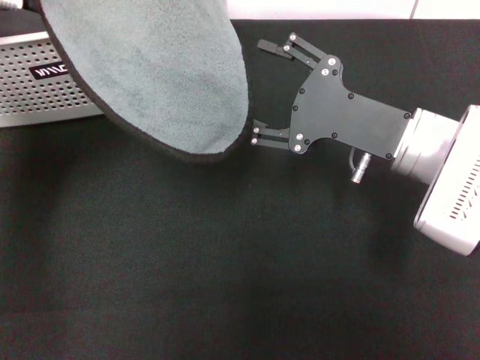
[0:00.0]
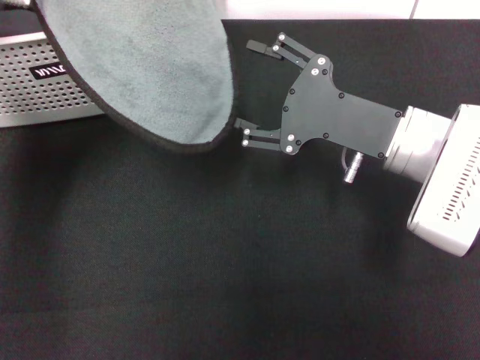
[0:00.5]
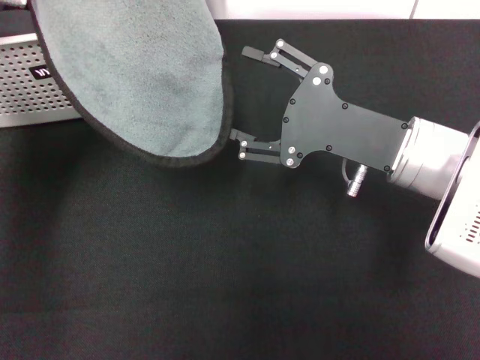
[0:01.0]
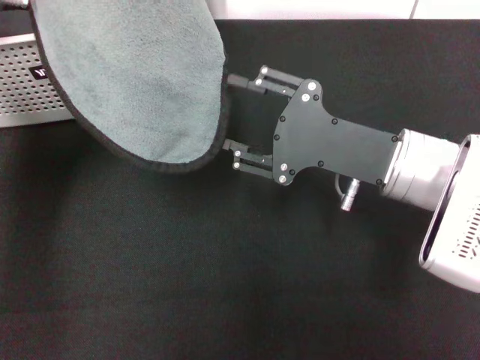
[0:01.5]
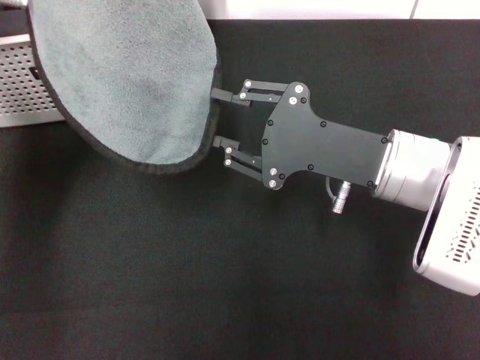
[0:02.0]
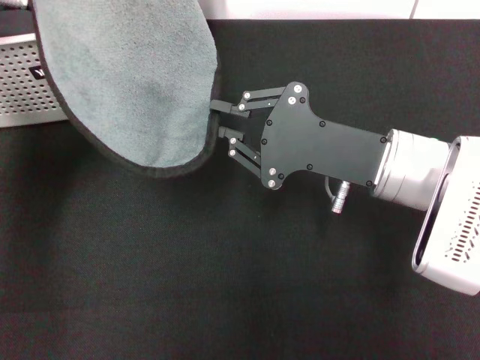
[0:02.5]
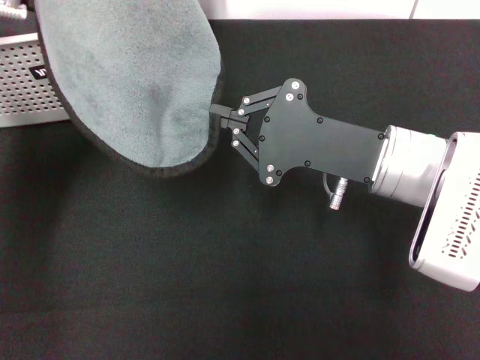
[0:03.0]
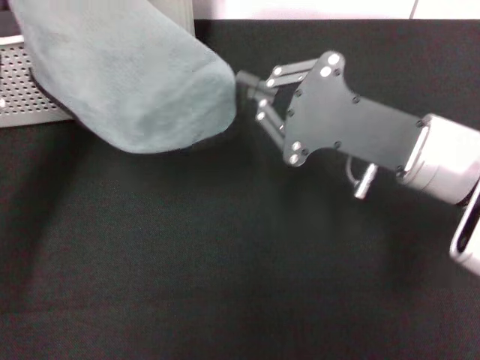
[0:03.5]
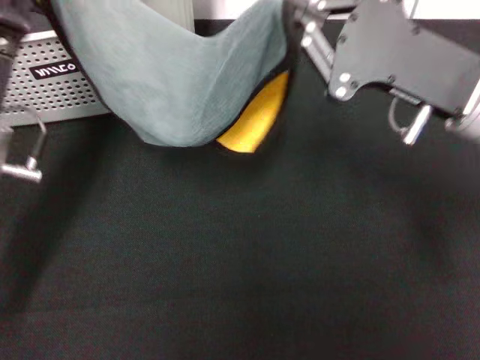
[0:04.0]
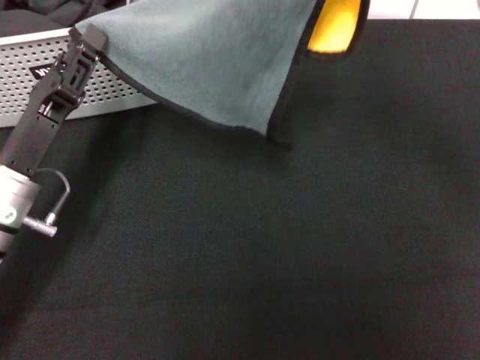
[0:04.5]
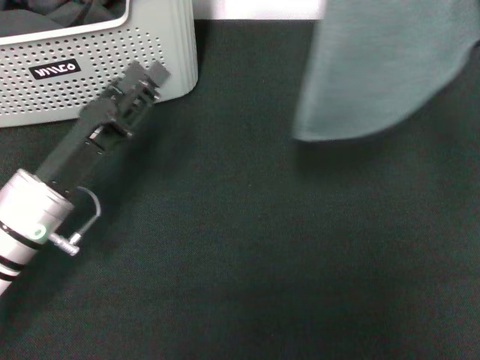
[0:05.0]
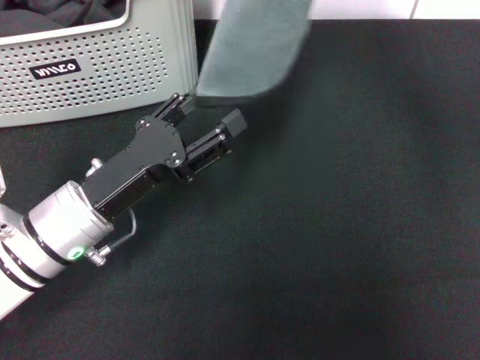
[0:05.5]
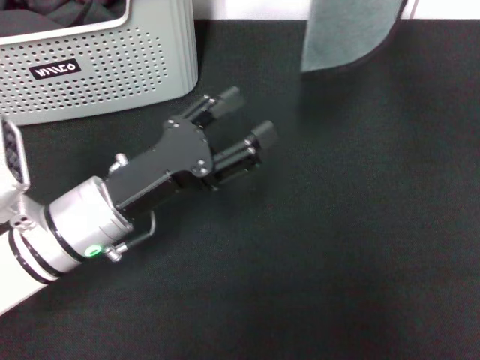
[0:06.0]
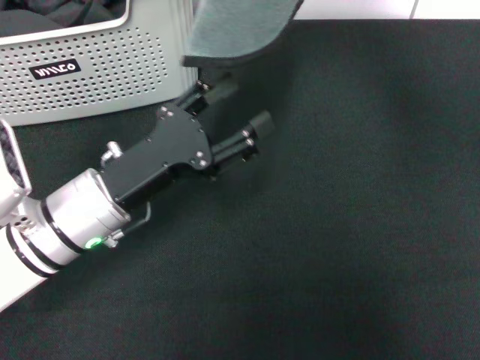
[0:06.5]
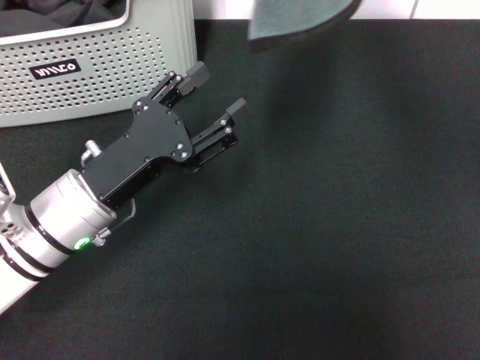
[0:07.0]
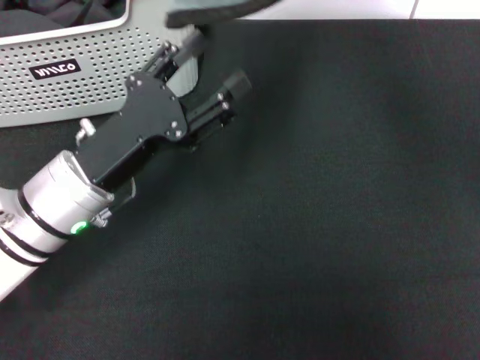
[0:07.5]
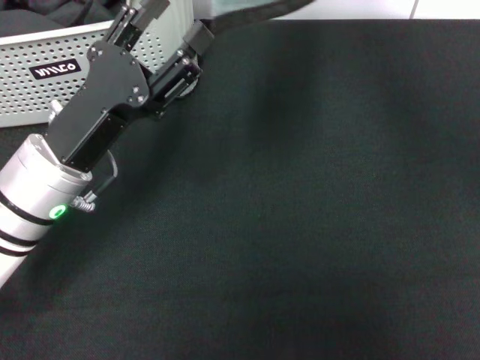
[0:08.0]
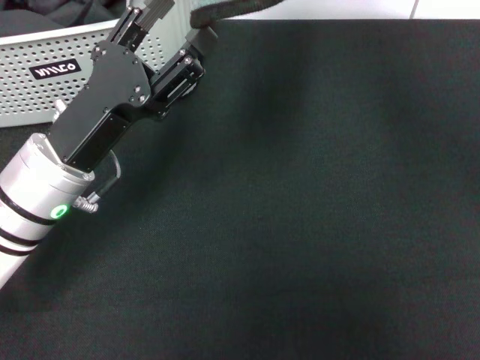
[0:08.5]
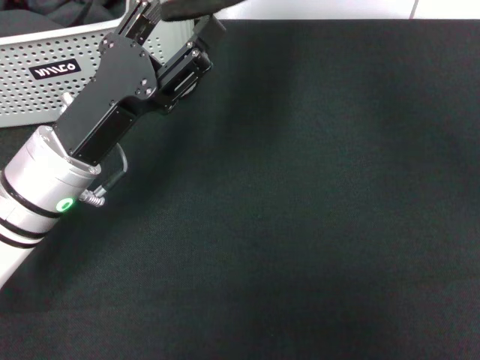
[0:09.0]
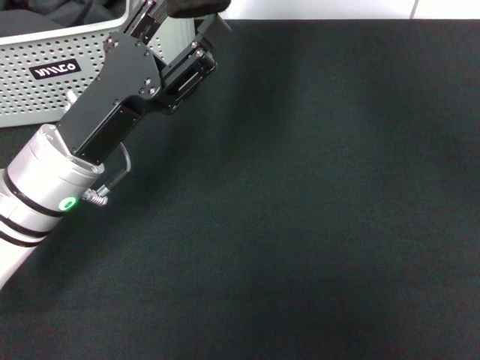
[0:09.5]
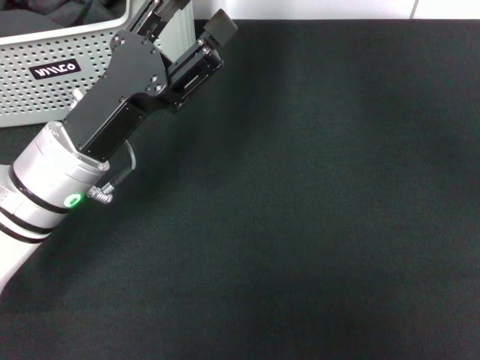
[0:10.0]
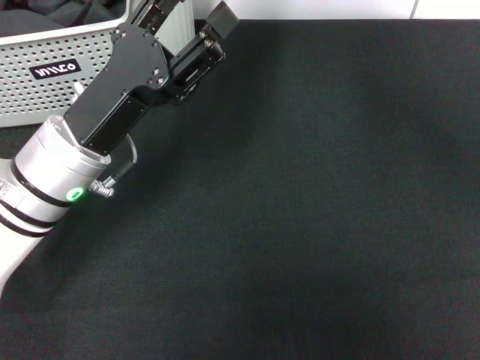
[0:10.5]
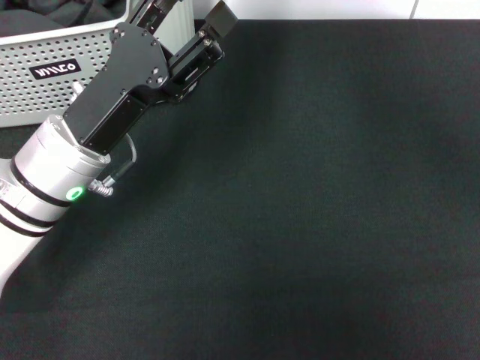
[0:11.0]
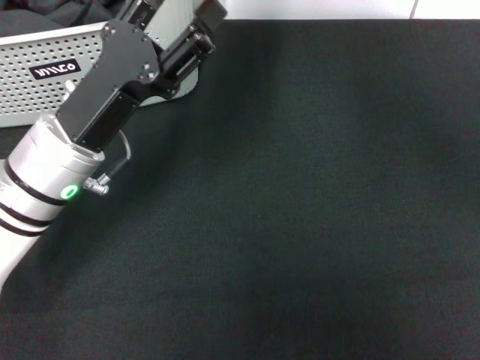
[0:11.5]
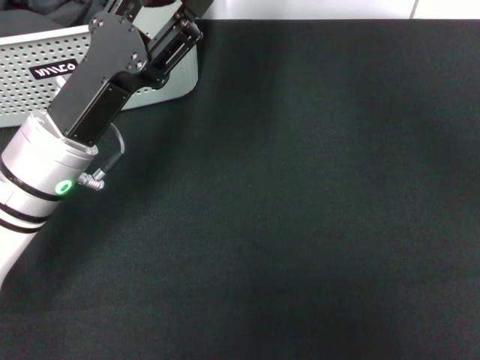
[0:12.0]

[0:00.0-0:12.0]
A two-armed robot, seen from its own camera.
Task of the whole recording: pick up the towel from the storage box and lay it flat on the black tablecloth.
Step, 0:00.0 to 0:02.5: Spread the towel flat with the left gripper.
0:00.0 to 0:02.0: The right gripper closes up.
0:02.0 to 0:04.0: The right gripper is displaced upward by approximately 5 cm, and closes up. The left gripper travels downward and backward by some 15 cm.
0:04.0 to 0:06.0: The left gripper goes about 5 cm to the right, and opens its fingers. The right gripper goes approximately 15 cm upward.
0:06.0 to 0:08.0: The right gripper shifts roughly 10 cm upward and backward.
0:08.0 to 0:10.0: The grippers move only a little.
0:10.0 to 0:12.0: Both grippers stay about where they are.

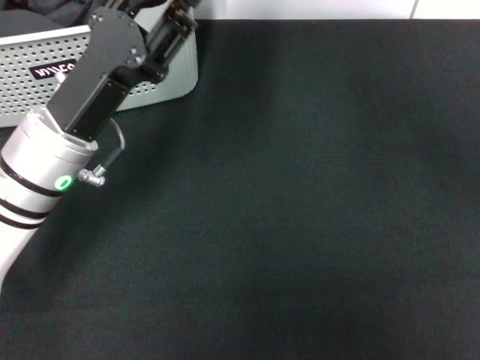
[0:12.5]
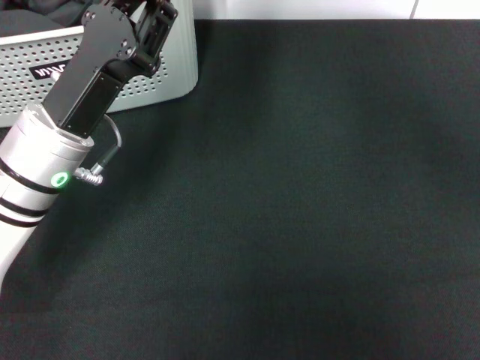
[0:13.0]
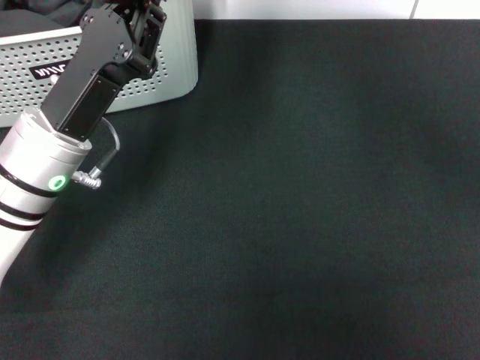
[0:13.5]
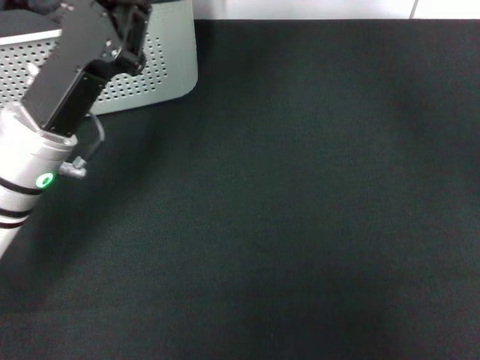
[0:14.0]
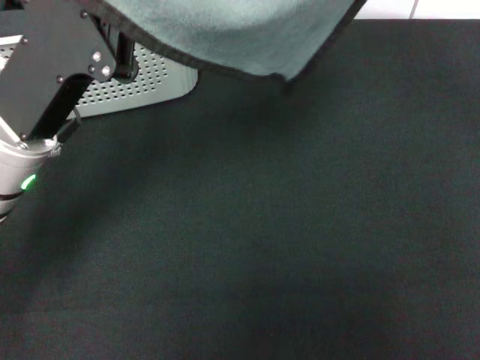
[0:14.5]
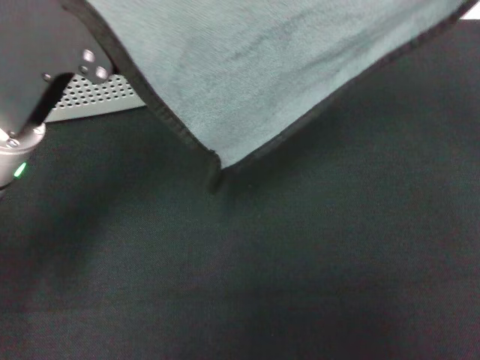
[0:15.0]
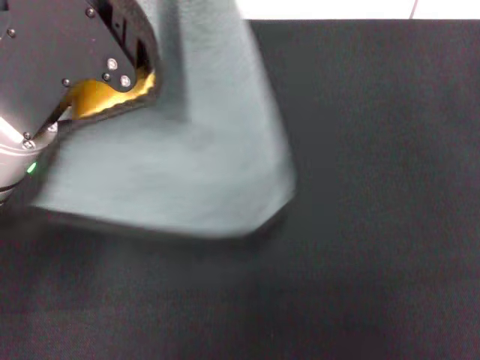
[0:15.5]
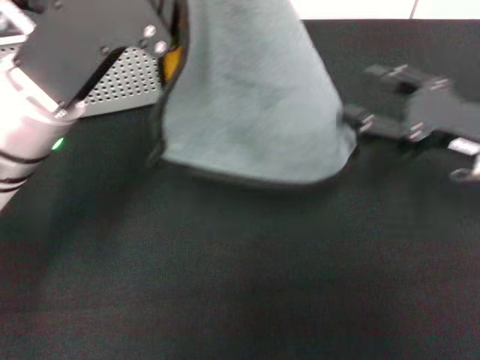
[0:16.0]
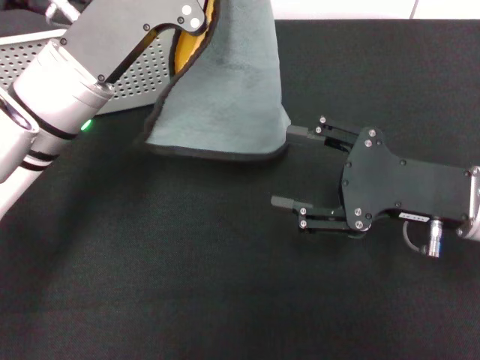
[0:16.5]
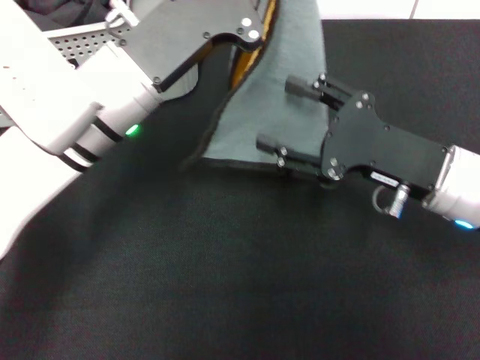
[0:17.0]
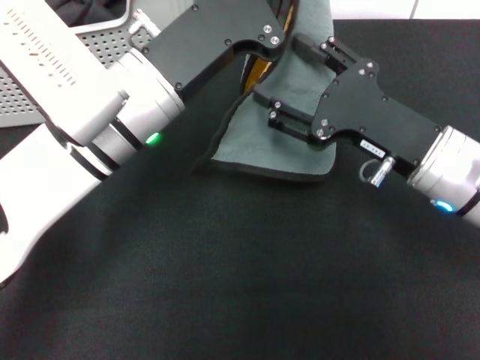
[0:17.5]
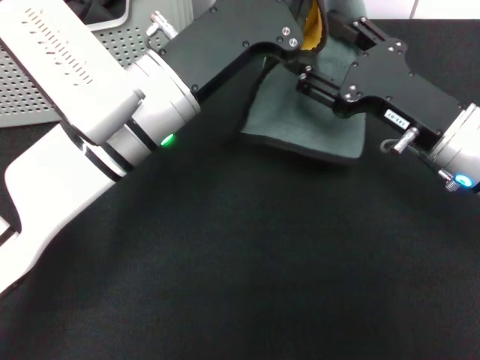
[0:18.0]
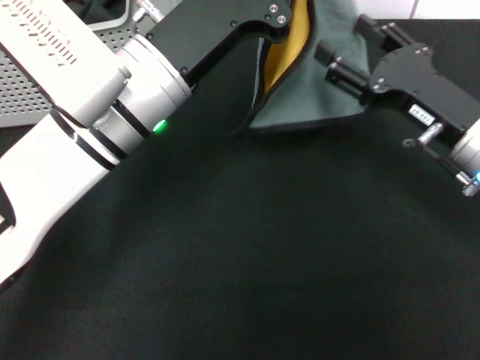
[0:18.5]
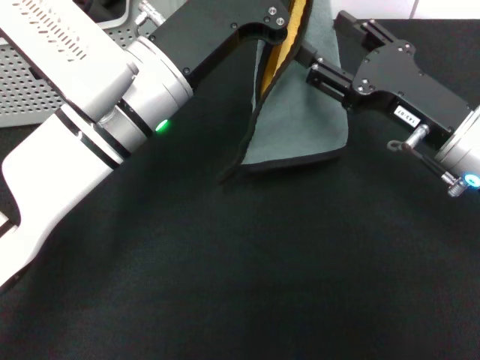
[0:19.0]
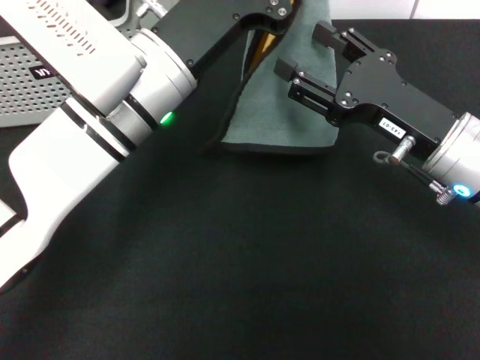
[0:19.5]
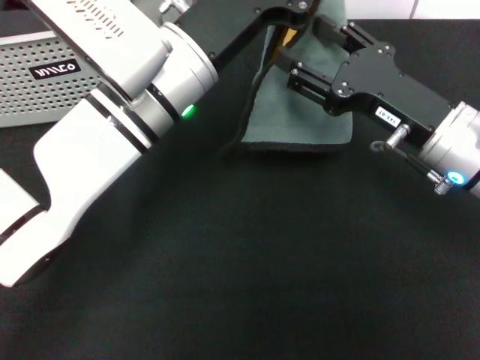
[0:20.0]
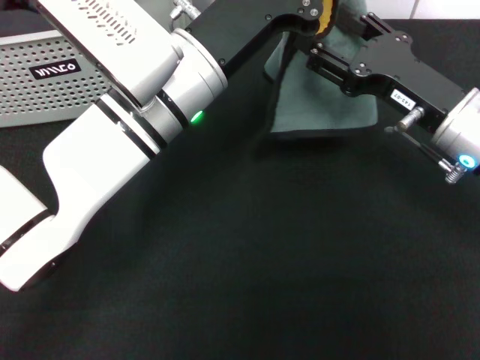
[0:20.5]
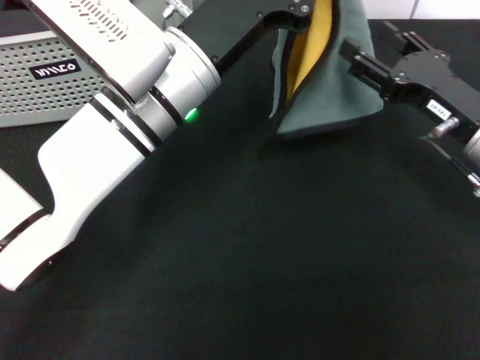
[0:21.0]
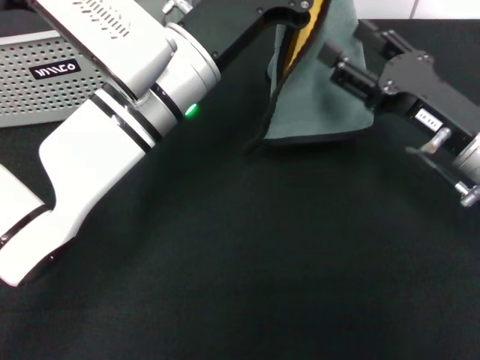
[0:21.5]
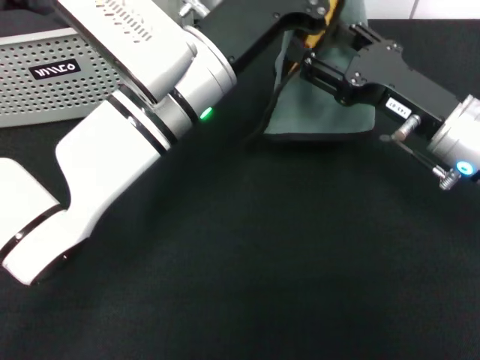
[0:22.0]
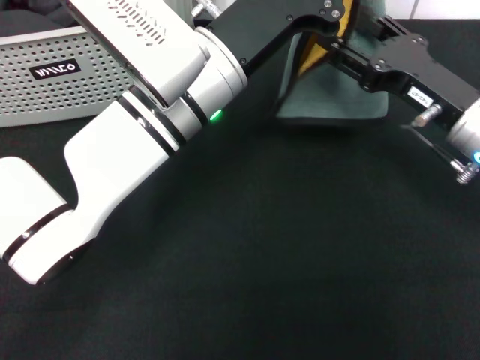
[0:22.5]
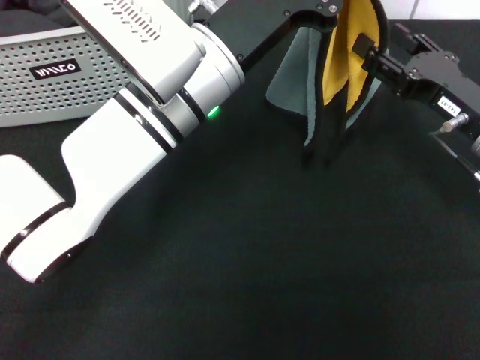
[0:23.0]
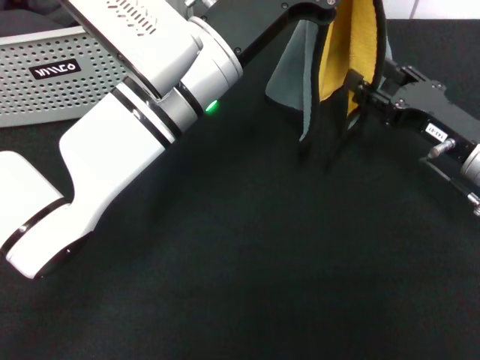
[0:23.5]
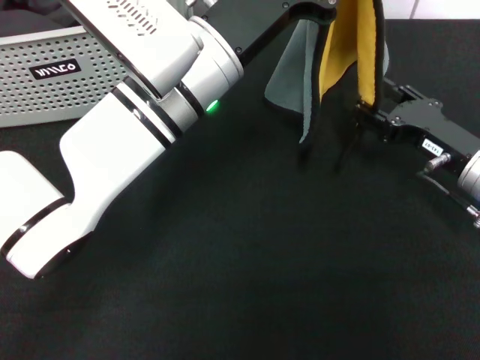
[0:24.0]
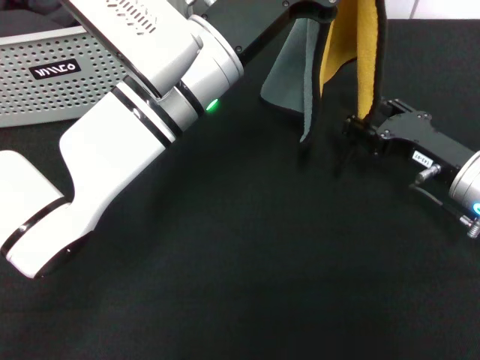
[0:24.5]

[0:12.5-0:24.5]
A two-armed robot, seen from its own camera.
Task of the whole recording: pick up the towel from the storage box and lay it flat on the black tablecloth.
0:12.5 to 0:14.5: The left gripper closes its fingers, while the right gripper travels downward and to the right by roughly 25 cm.
0:14.5 to 0:16.5: The left gripper changes place by roughly 5 cm, while the right gripper goes approximately 15 cm downward, to the left and backward, and opens its fingers.
0:16.5 to 0:18.5: The left gripper heads to the right, covering approximately 5 cm.
0:22.5 to 0:24.5: The right gripper shifts approximately 5 cm downward.

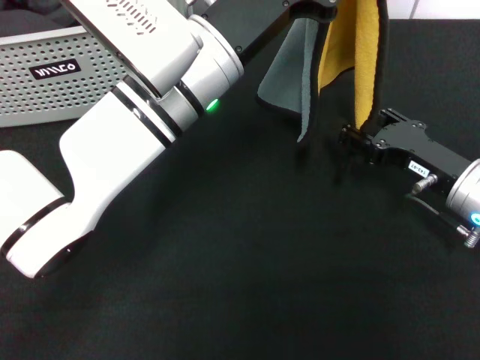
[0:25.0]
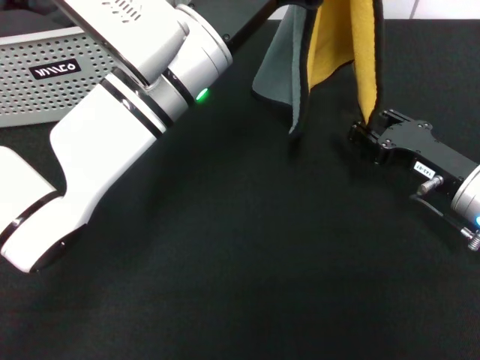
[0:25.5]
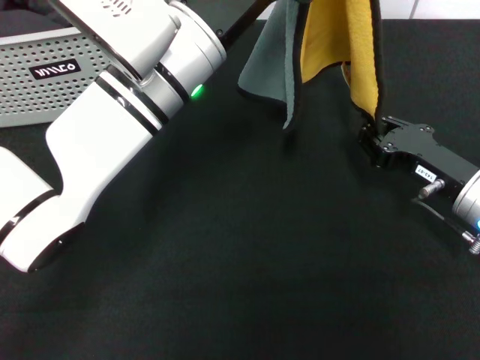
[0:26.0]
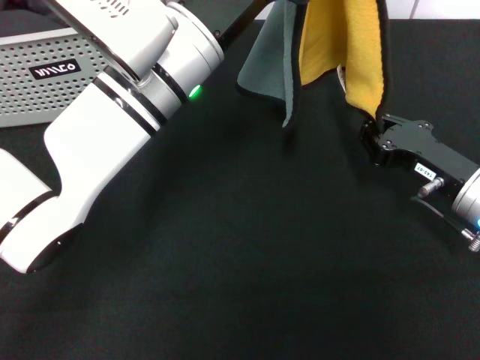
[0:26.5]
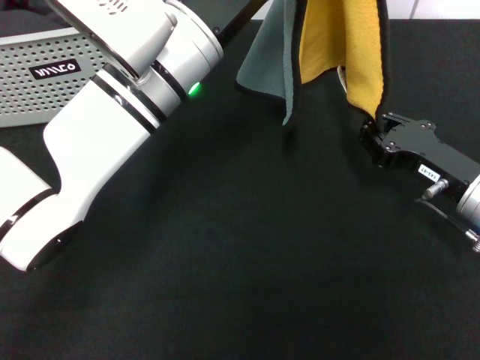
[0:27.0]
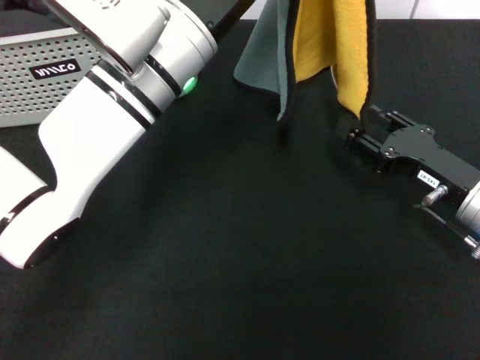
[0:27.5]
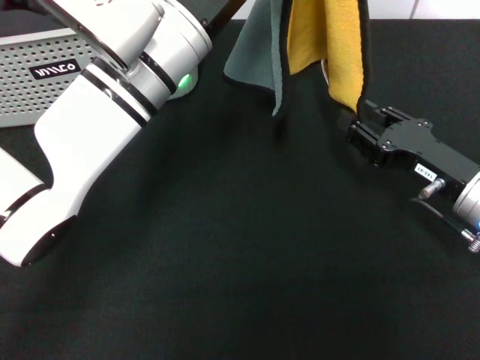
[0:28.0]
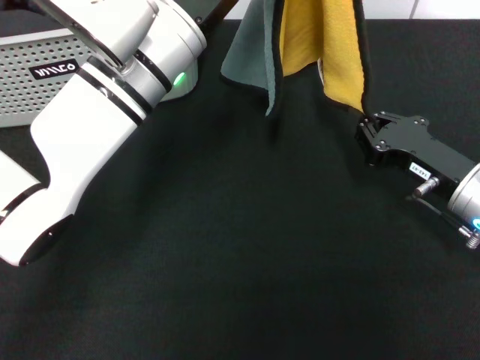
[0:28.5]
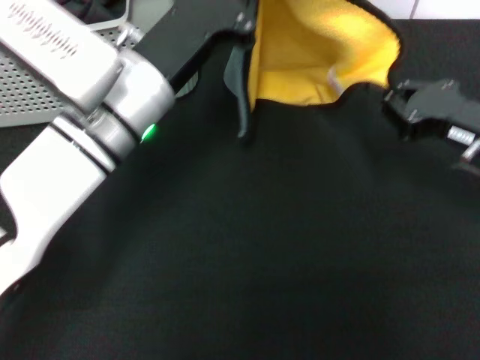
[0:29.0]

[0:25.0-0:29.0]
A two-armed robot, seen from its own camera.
Task of the whole recording: pick up the towel from the storage box and lay it flat on the black tablecloth.
0:25.0 to 0:27.0: The right gripper closes.
0:27.0 to 0:29.0: The right gripper is displaced upward by some 5 cm, and opens and closes again. Meanwhile the left gripper ends up some 5 cm from where it was.
